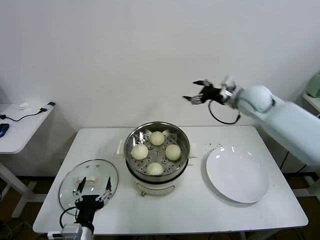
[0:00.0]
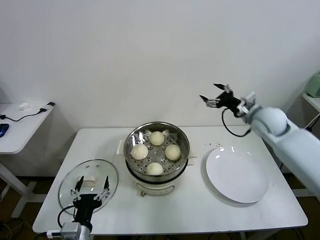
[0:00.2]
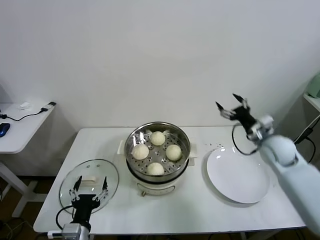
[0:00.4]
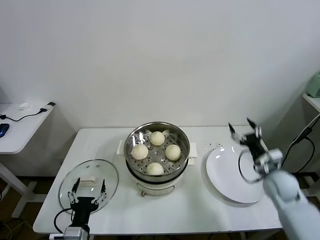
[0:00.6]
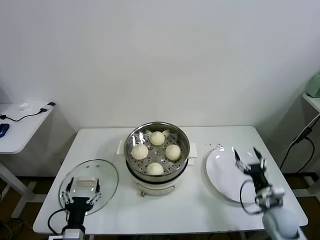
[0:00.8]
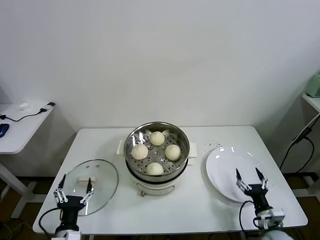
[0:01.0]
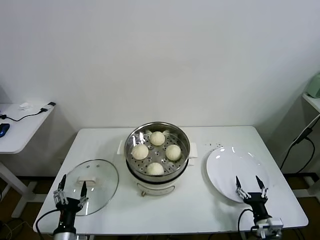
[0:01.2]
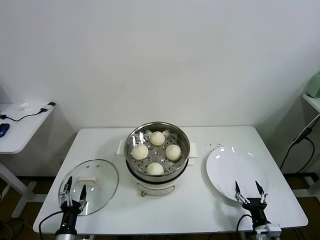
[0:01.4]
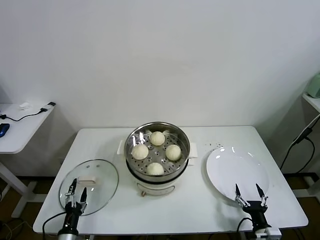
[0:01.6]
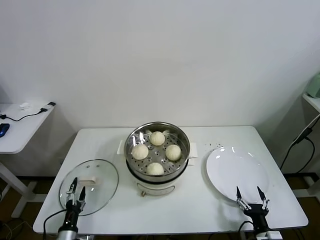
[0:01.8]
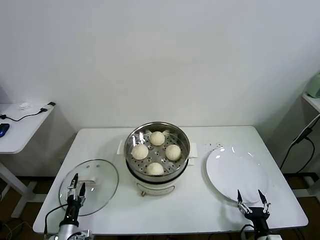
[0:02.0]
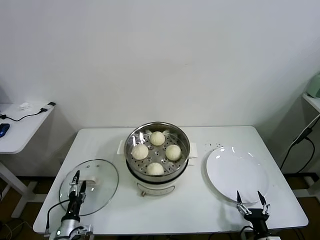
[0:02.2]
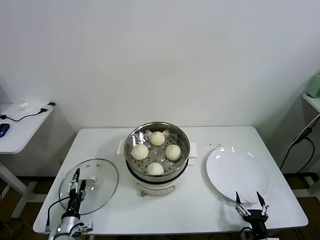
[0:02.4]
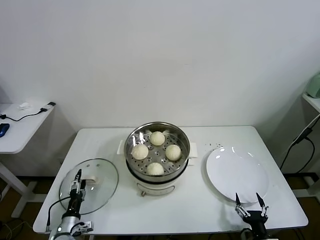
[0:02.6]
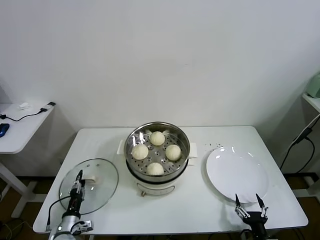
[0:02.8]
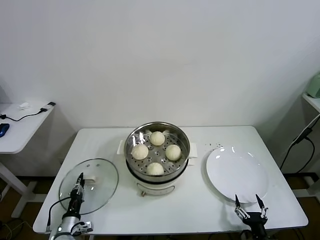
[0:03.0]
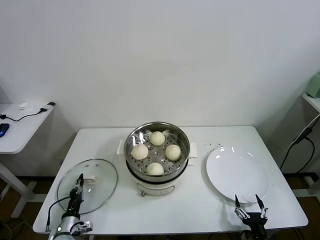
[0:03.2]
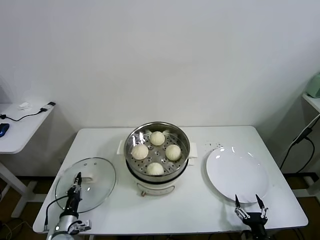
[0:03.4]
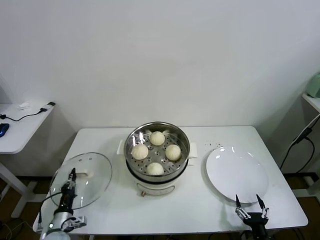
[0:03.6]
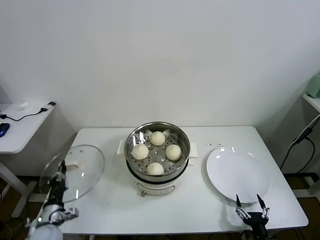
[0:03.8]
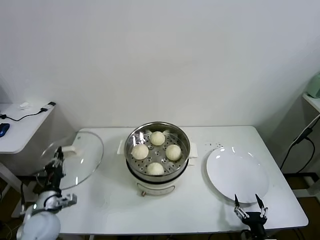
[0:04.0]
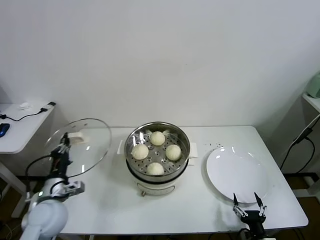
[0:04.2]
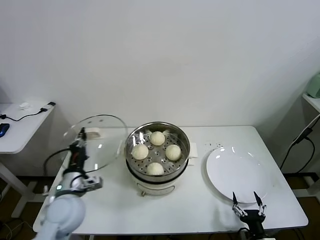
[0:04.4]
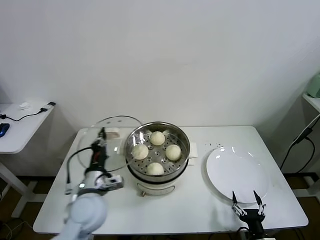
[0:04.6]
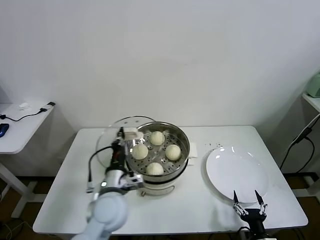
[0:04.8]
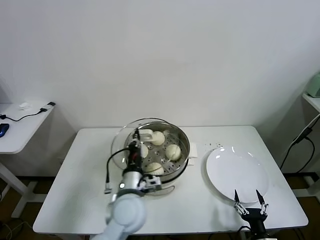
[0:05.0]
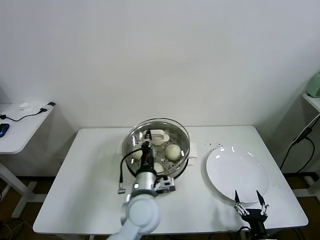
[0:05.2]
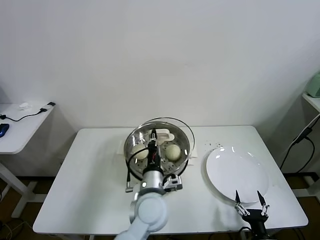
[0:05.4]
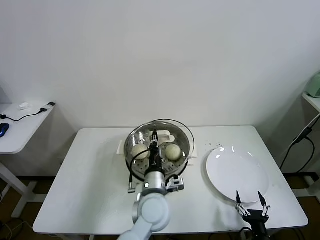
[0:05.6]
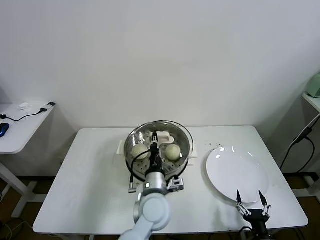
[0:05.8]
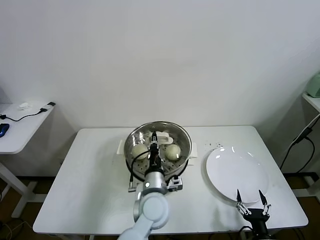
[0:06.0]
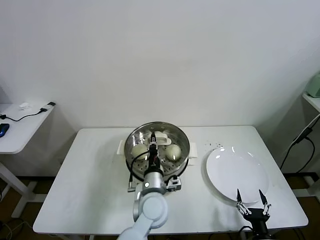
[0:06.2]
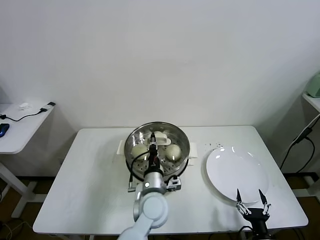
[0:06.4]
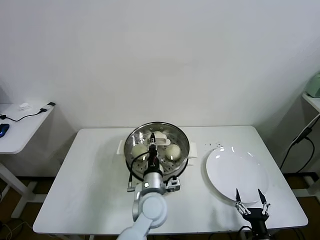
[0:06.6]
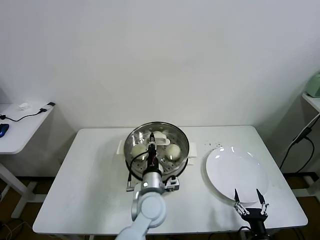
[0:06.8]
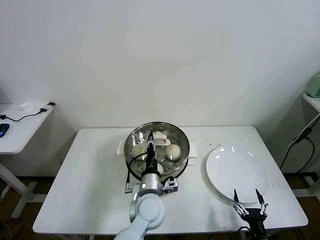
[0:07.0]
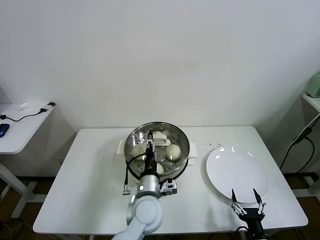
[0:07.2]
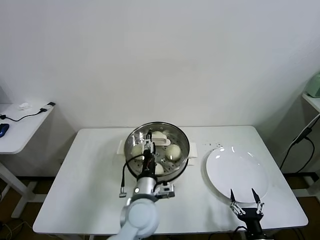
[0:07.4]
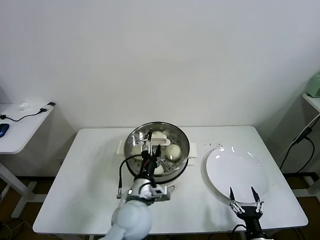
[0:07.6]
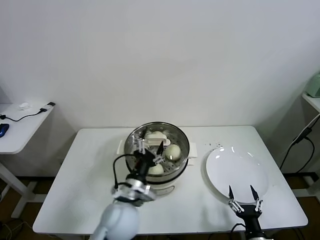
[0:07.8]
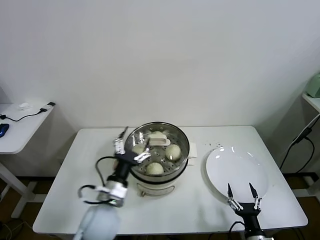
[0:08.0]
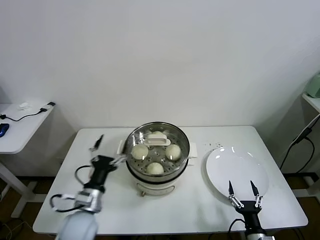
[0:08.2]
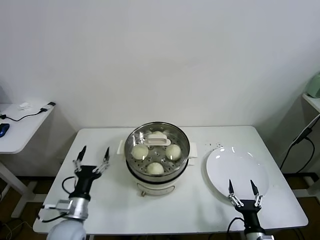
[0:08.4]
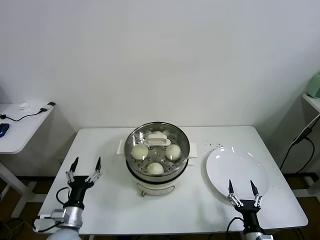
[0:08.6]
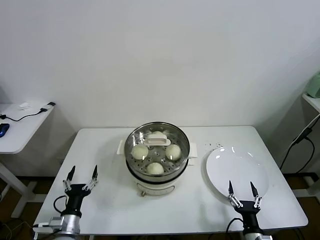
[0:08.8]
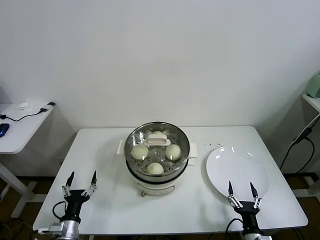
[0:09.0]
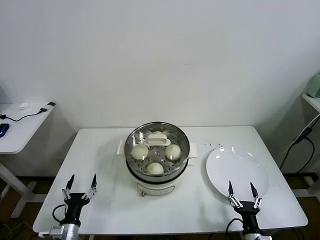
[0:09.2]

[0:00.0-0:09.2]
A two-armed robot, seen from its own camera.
Task of the whole recording: take steamed baozi put them in steamer.
Step, 0:00.0 to 0:03.0: Grasp the pot lid with left gripper.
Step, 0:03.4 to 0:07.4: Place the pot lid on the steamer with left gripper.
0:00.0 to 0:01.6: The right gripper heads backward and downward, covering some 50 cm, while the left gripper is displaced downward and to the left by about 20 cm.
0:01.6 to 0:03.0: The left gripper travels forward by approximately 5 cm, and closes up.
0:03.0 to 0:04.6: The left gripper is displaced upward and to the right by some 30 cm.
0:04.6 to 0:06.2: The left gripper shifts approximately 20 cm to the right.
0:06.2 to 0:07.6: The left gripper moves about 5 cm, and opens.
0:07.6 to 0:09.2: The left gripper is displaced to the left and downward by some 30 cm.
